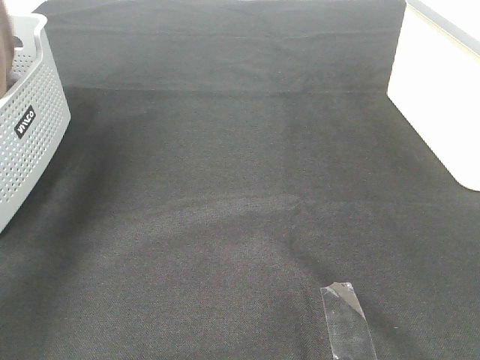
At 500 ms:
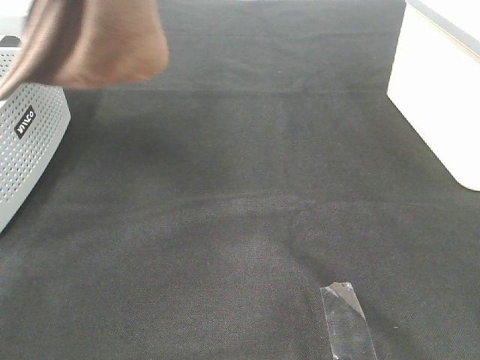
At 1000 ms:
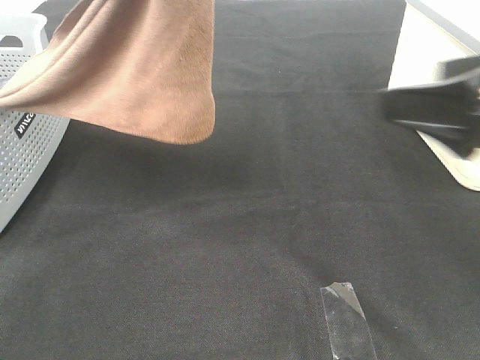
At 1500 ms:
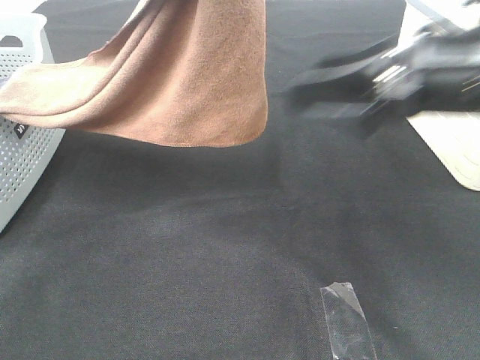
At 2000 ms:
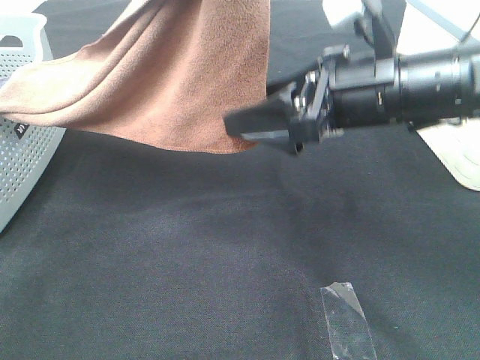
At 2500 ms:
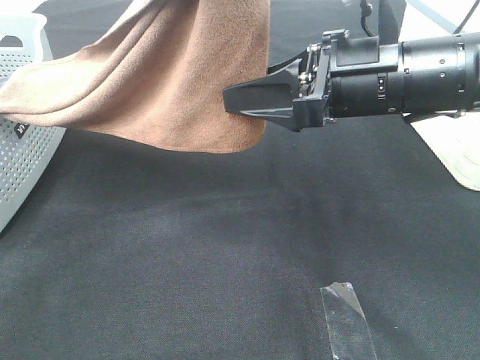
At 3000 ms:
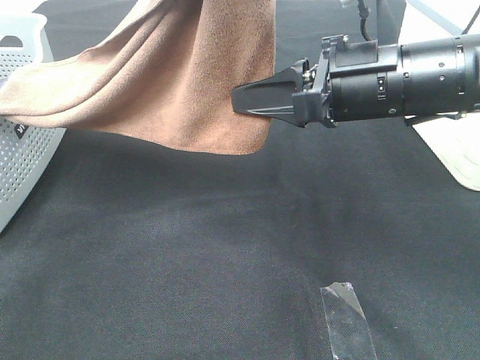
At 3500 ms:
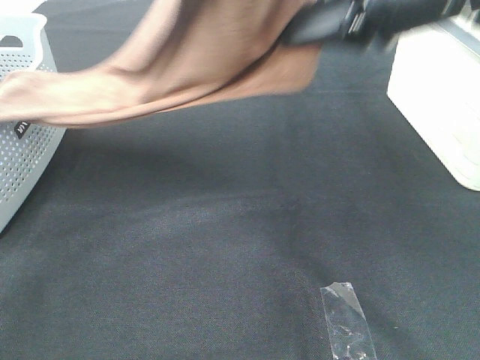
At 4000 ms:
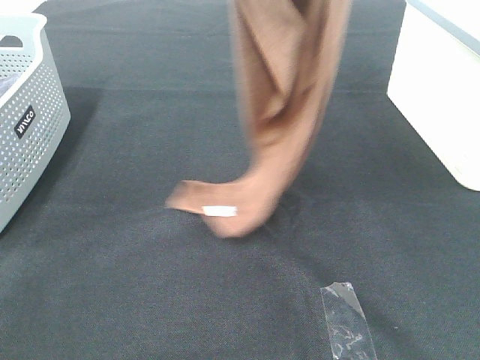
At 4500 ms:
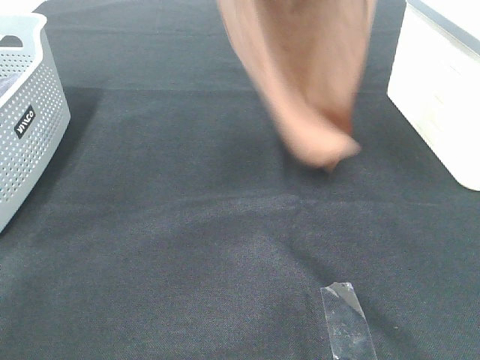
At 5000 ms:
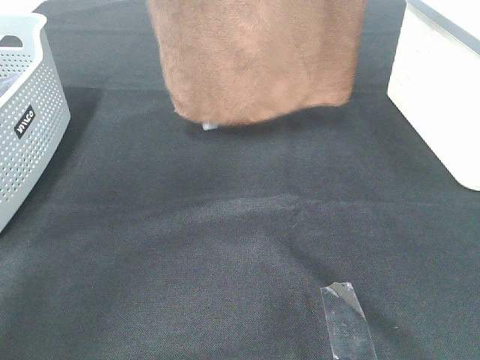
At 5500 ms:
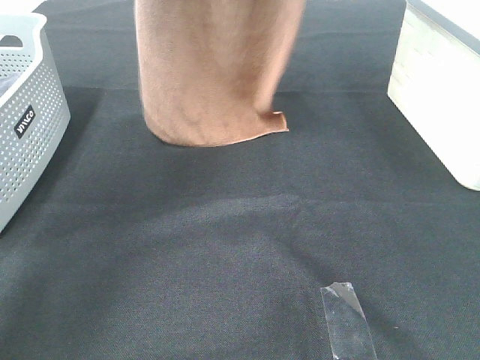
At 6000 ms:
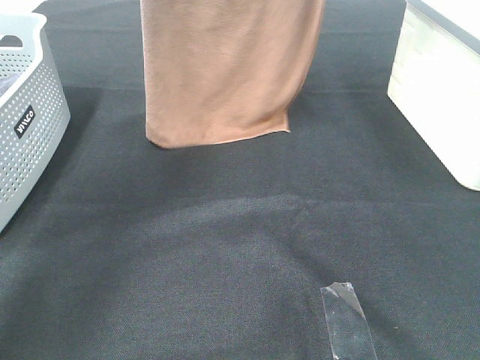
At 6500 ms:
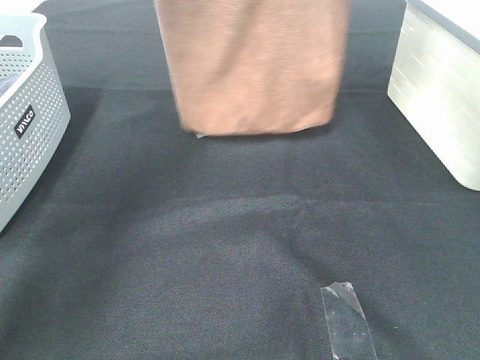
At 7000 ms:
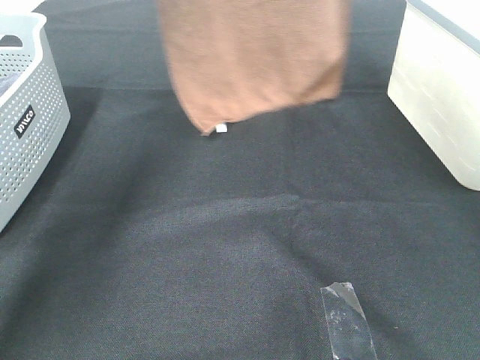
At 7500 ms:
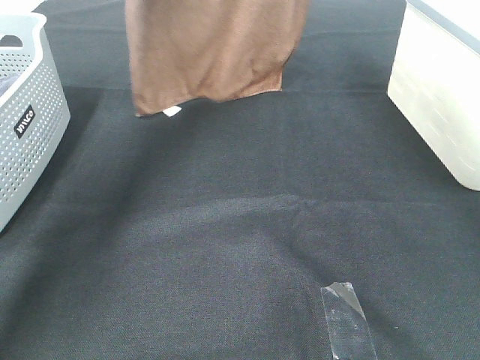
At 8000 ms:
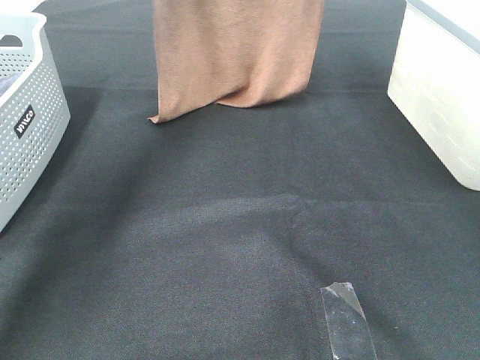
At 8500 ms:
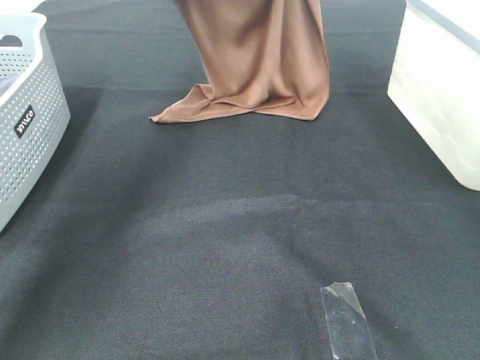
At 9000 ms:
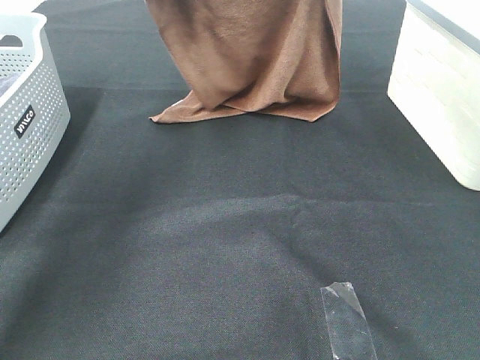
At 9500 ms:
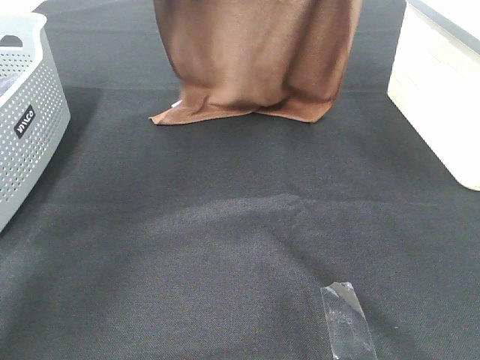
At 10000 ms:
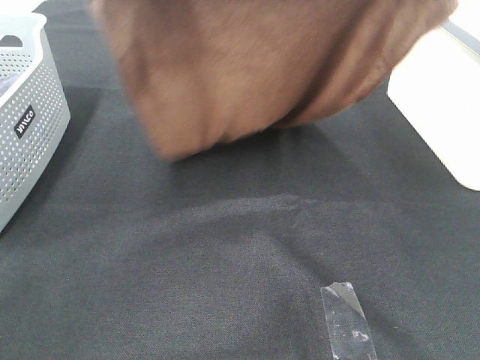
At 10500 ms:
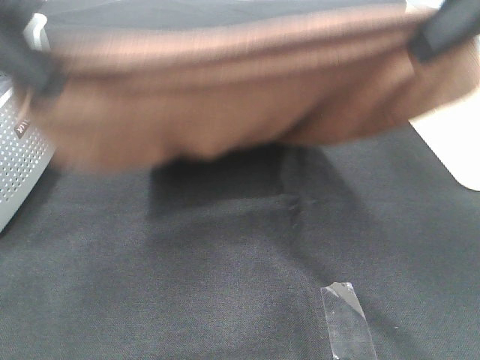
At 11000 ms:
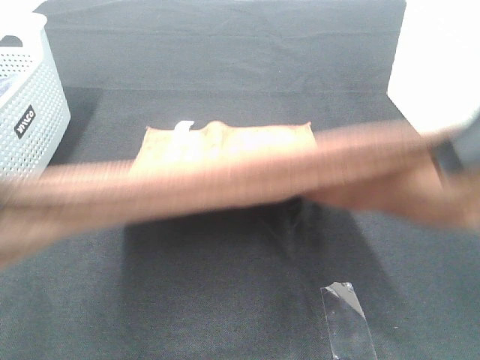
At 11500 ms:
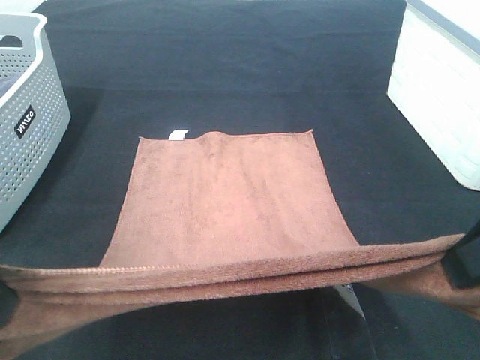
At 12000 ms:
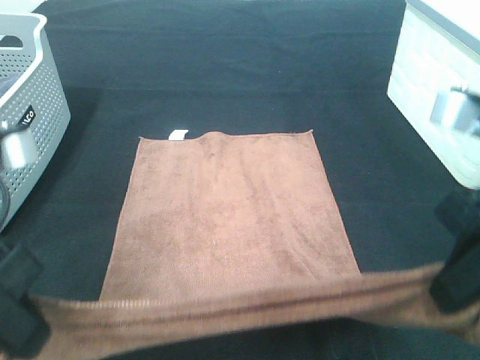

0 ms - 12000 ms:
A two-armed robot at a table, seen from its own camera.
Task of the whole recording: Remove the towel and place it.
Step, 0 ms - 2500 ms: Right hand: grab a corner of the brown towel and straighten it.
Step, 3000 ms - 10500 ms: Left hand: spread the brown towel flat on the table.
Step, 3000 ms - 10500 ms: Right hand: spread the brown towel flat on the table.
0 ms - 2000 ms: The right gripper shifts some 30 cm forward and to the left, while the left gripper is displaced to the right and backward by roughly 25 cm.
2000 ms - 4000 ms: The right gripper travels upward by about 25 cm, and closes up.
4000 ms - 6000 ms: The left gripper moves forward and to the left, about 15 cm; the right gripper goes some 10 cm forward.
6000 ms - 8000 ms: The grippers both shift forward and downward by roughly 10 cm.
8000 ms - 10000 ms: The two grippers go approximately 20 cm backward.
10000 ms - 12000 ms: The right gripper moves downward and backward, some 20 cm. Meanwhile the left gripper heads backward and downward, covering roughly 25 cm.

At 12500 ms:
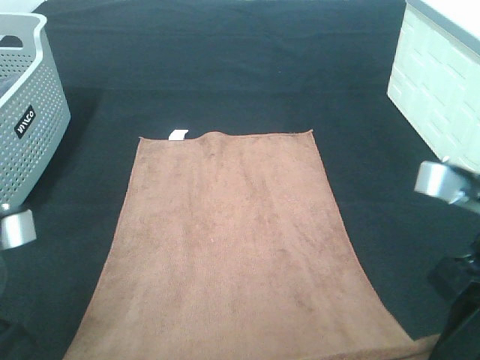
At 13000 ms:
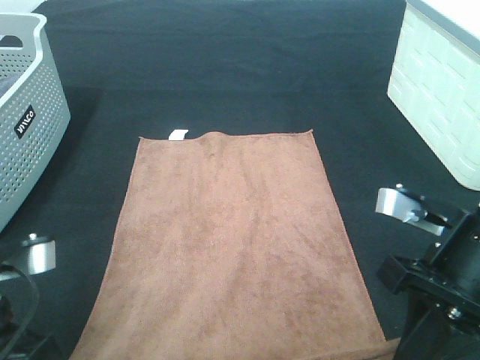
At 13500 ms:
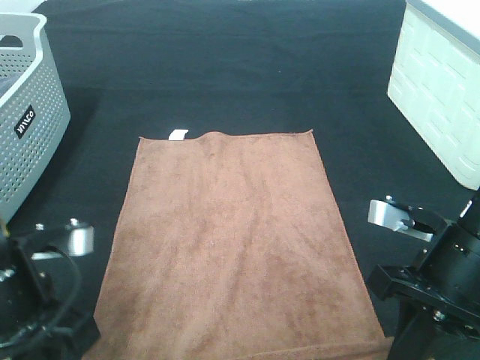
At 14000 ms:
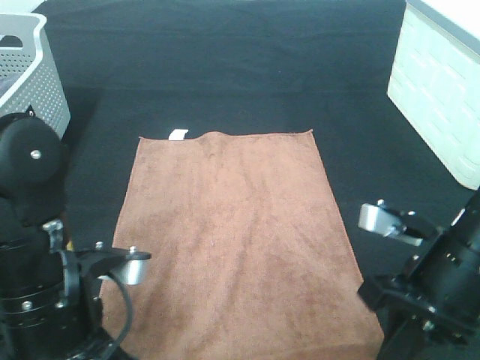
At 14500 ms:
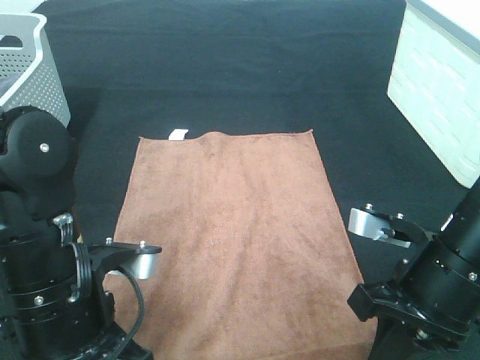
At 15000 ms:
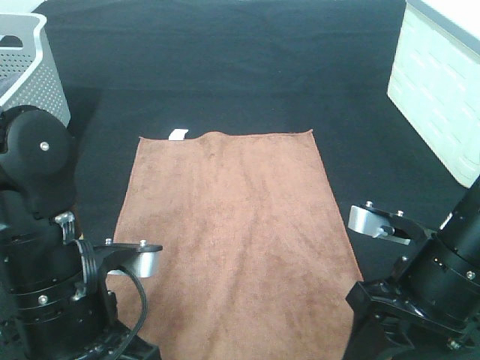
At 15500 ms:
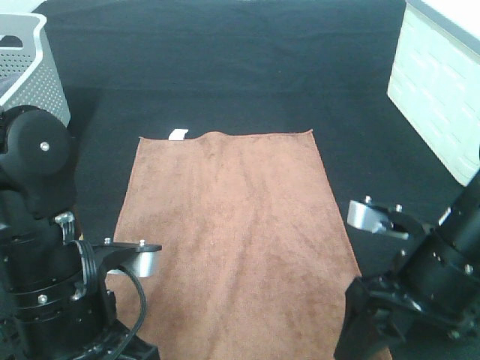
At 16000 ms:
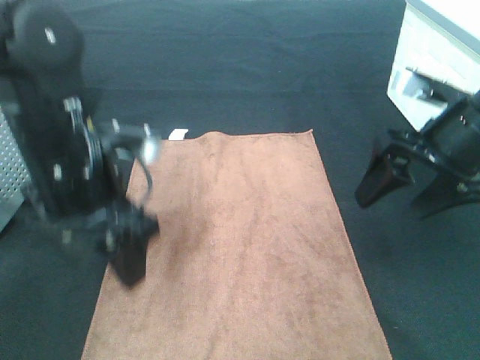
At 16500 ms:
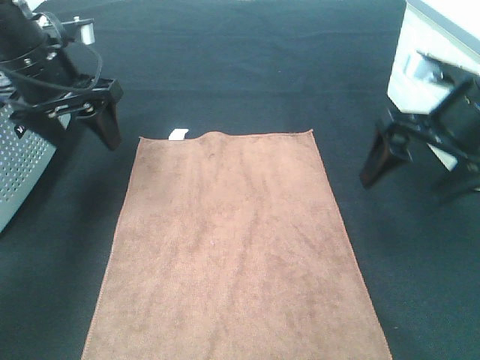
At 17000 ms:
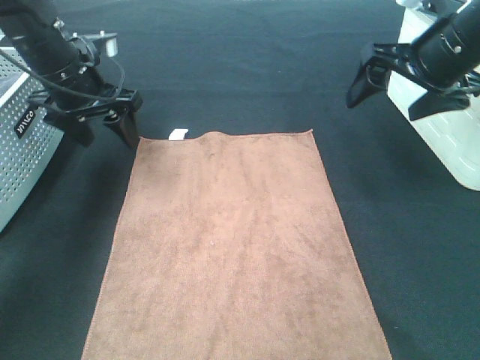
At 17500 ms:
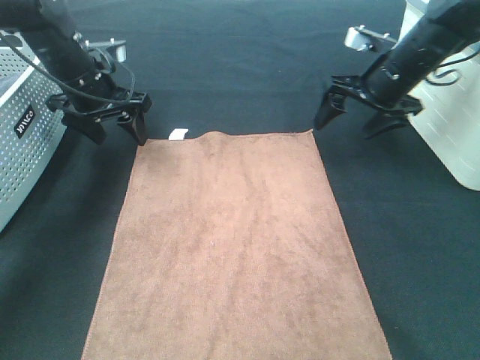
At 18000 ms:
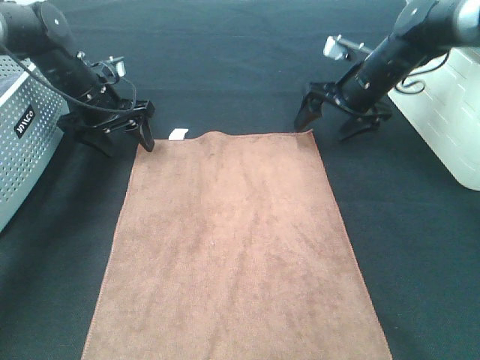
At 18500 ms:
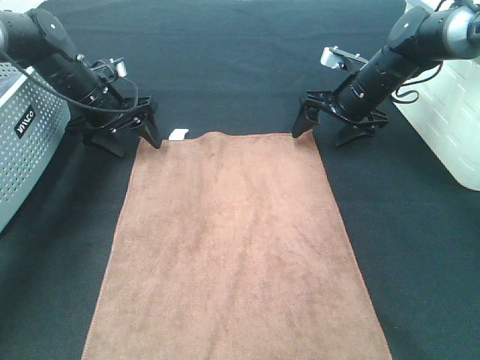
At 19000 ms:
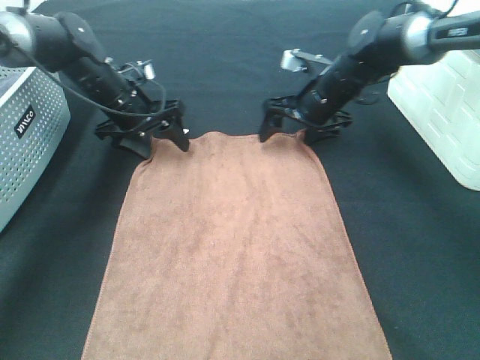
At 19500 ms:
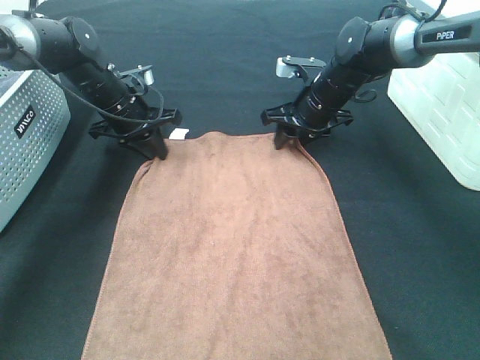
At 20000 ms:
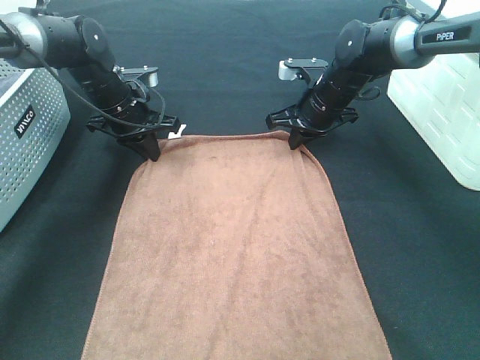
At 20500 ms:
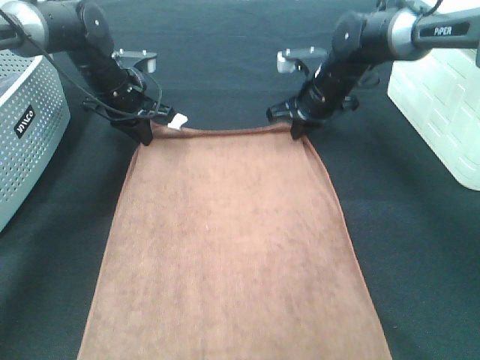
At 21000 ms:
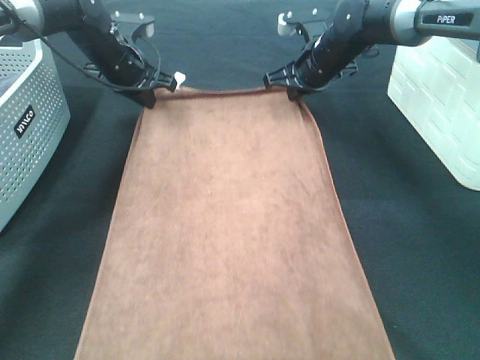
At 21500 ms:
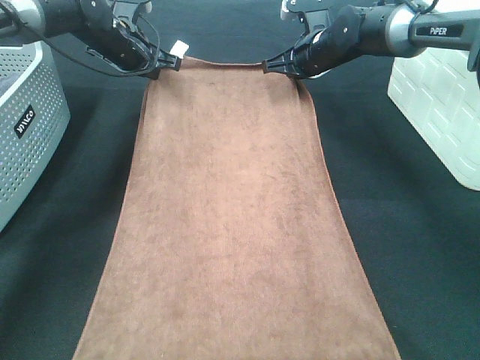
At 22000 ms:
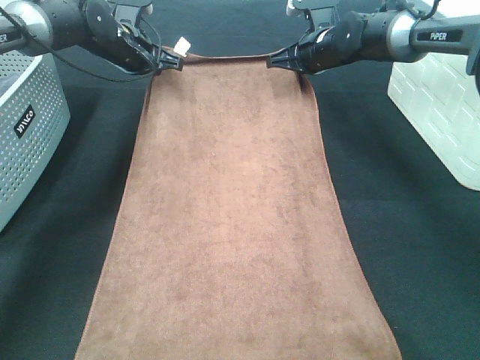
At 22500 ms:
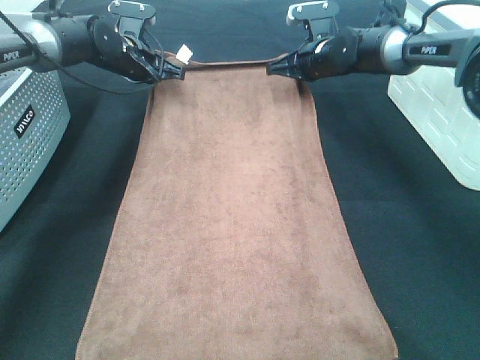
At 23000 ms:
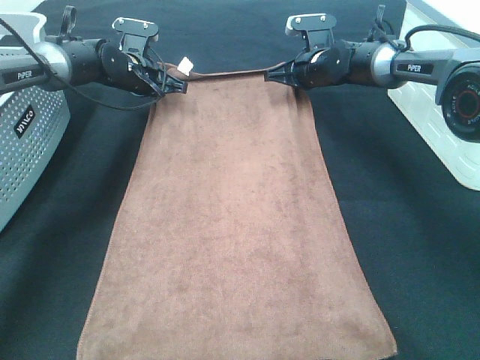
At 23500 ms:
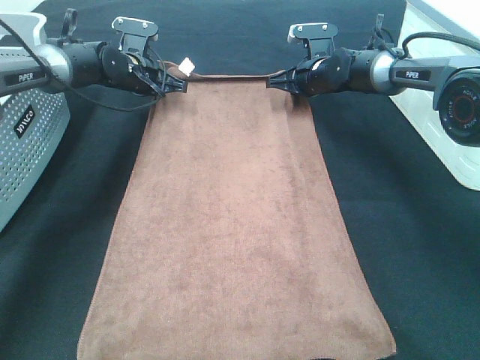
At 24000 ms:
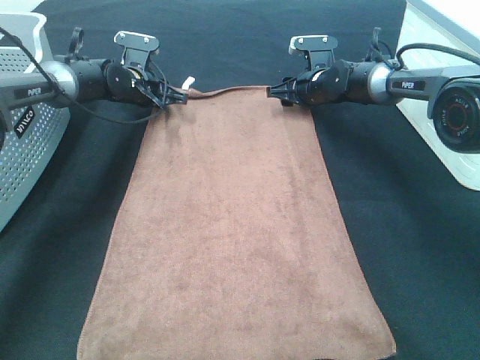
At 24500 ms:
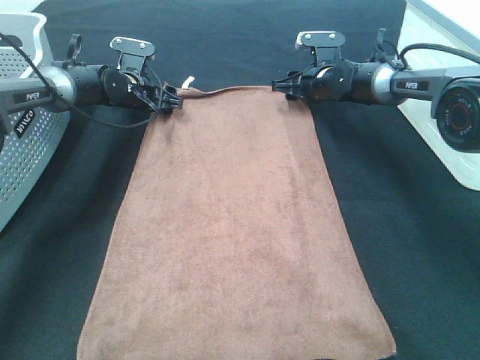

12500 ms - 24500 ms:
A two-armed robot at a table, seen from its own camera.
Task of the whole recording: Remove the towel and place it.
Step, 12500 ms - 18500 ms: Left hand:adjust the brown towel.
Step, 12500 ms - 18500 ms: Right hand:adjust the brown towel.
12500 ms - 14500 ms: The right gripper heads downward, covering about 10 cm; the left gripper heads to the right and downward, covering roughly 10 cm.
14500 ms - 16500 ms: The left gripper goes roughly 25 cm forward and to the left, and opens up. Meanwhile the right gripper travels forward and upward by about 15 cm, and opens up.
16500 ms - 18500 ms: The left gripper travels downward and forward by about 15 cm. The right gripper heads forward and downward, covering roughly 20 cm.
18500 ms - 20500 ms: The left gripper closes its fingers. The right gripper travels to the left by approximately 5 cm, and closes its fingers.
20500 ms - 22500 ms: The grippers both shift forward by roughly 5 cm.
22500 ms - 24500 ms: Both grippers move downward, about 5 cm. The left gripper opens, while the right gripper opens up.

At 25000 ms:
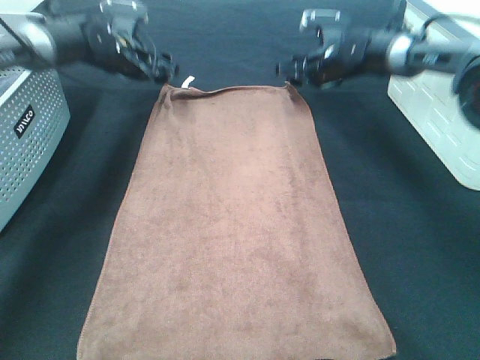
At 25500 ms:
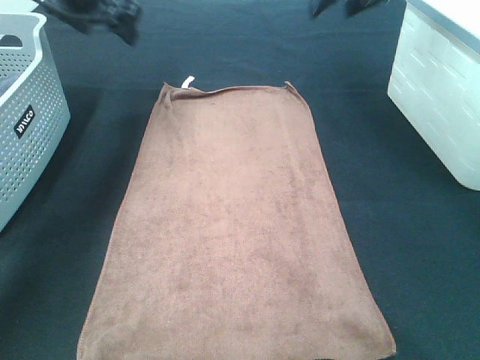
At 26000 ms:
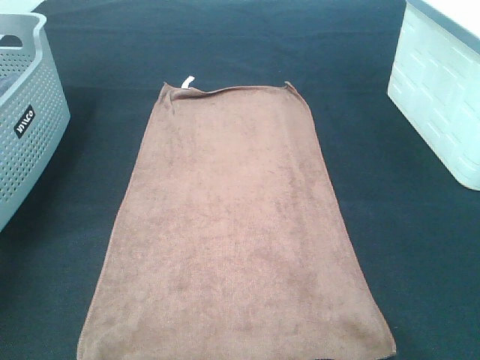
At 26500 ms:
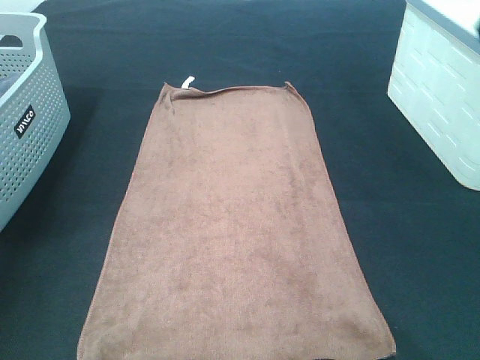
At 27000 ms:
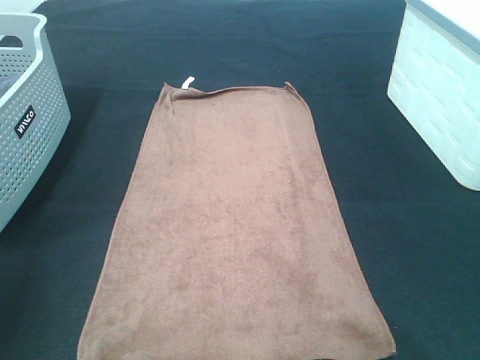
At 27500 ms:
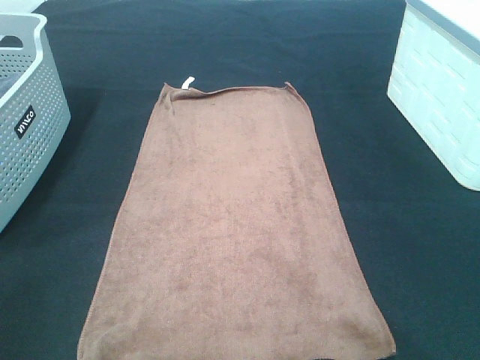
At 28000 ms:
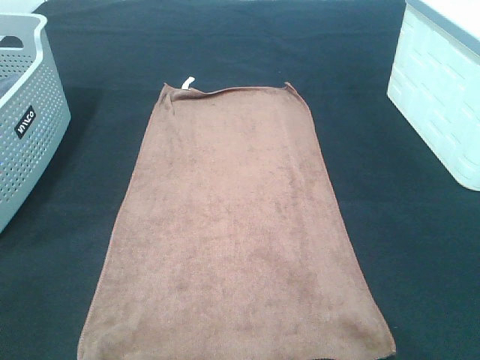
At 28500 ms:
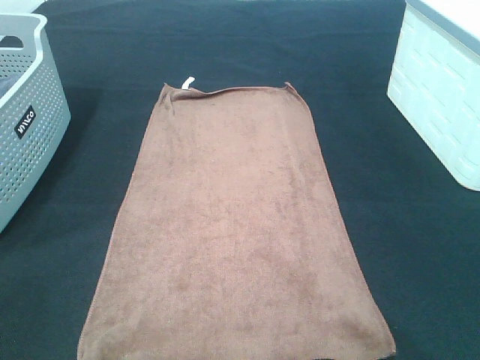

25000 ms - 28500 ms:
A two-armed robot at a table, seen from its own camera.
Task of the whole recording: Remove the towel and place it.
25000 ms - 27000 ms: Both grippers move backward and upward, roughly 50 cm.
